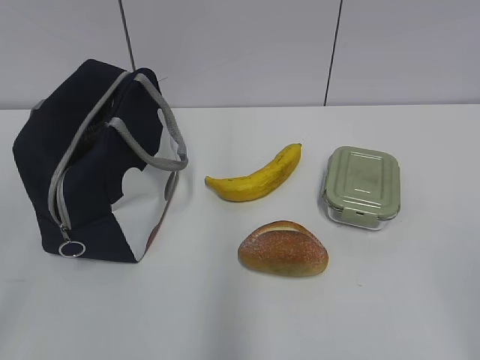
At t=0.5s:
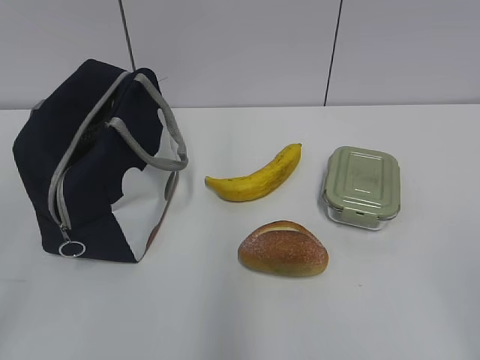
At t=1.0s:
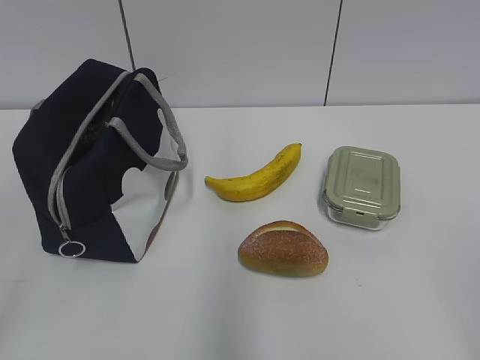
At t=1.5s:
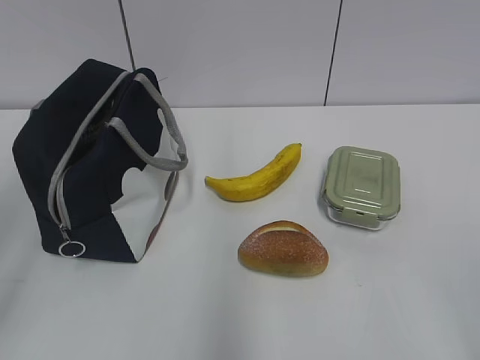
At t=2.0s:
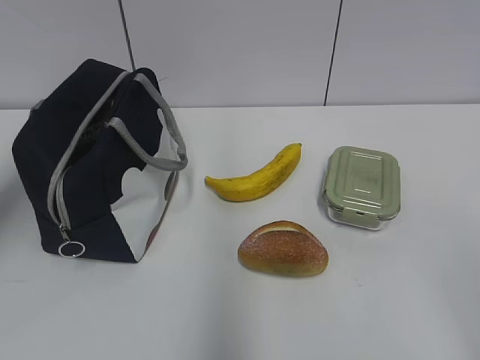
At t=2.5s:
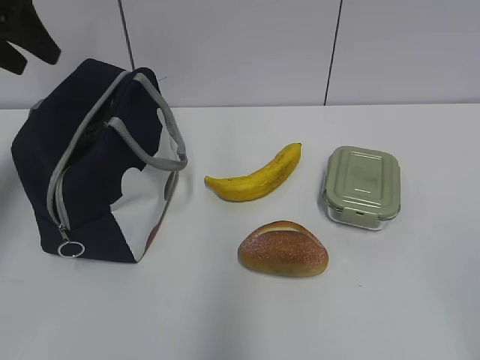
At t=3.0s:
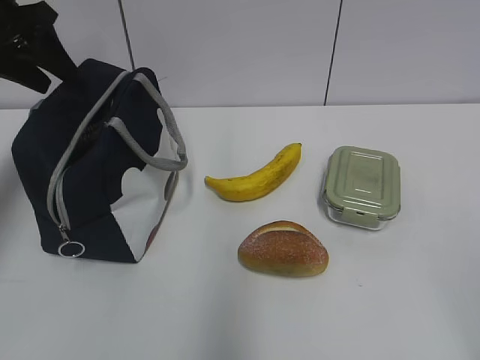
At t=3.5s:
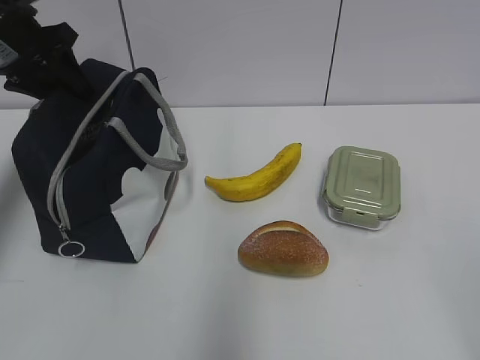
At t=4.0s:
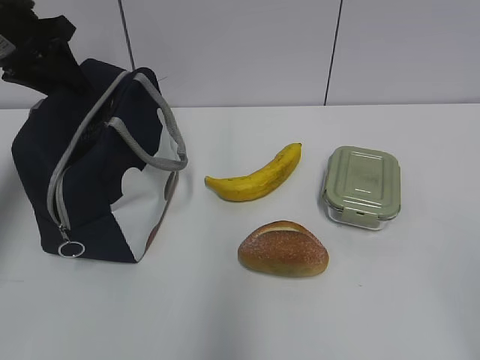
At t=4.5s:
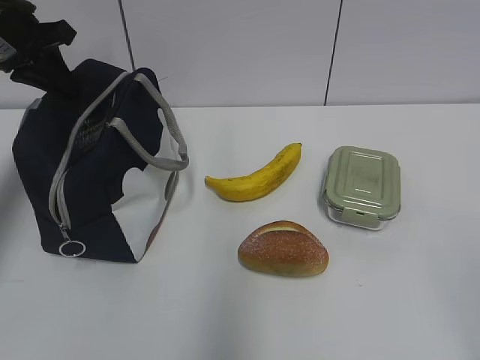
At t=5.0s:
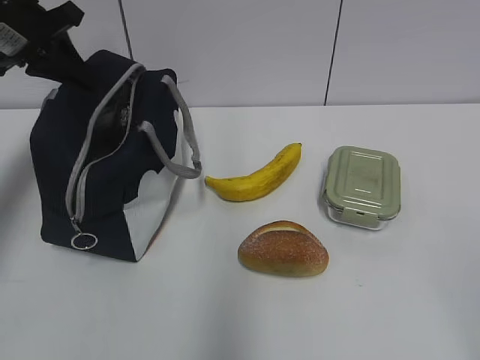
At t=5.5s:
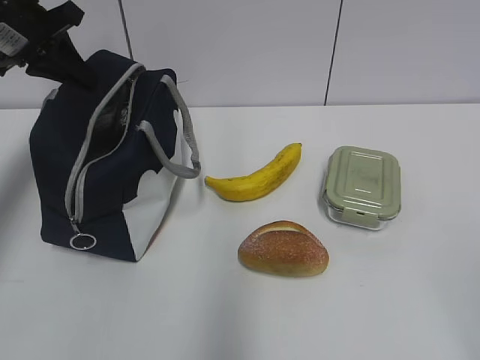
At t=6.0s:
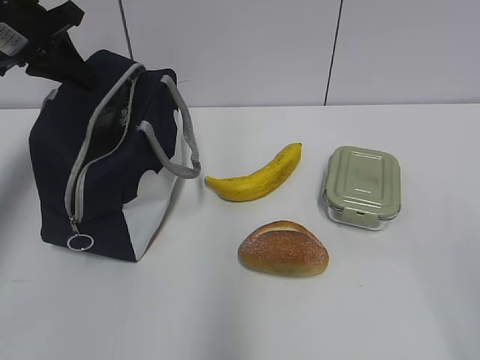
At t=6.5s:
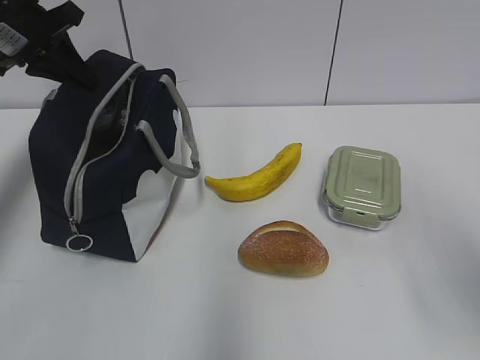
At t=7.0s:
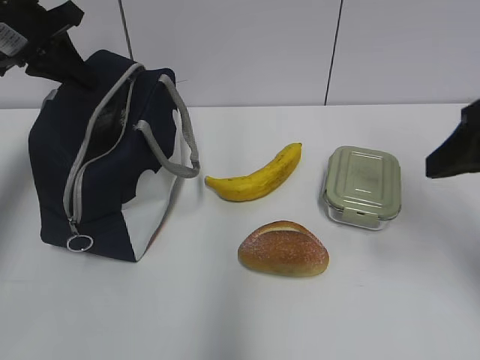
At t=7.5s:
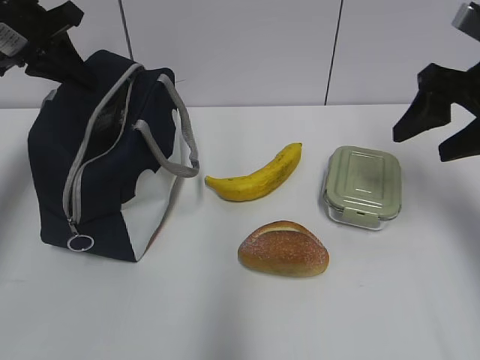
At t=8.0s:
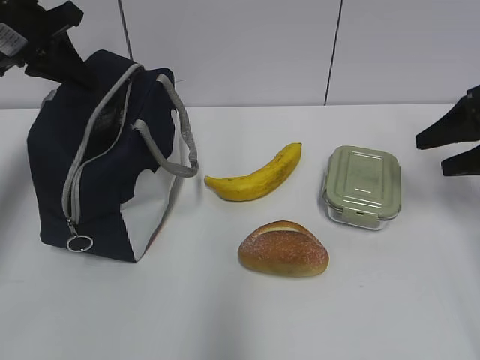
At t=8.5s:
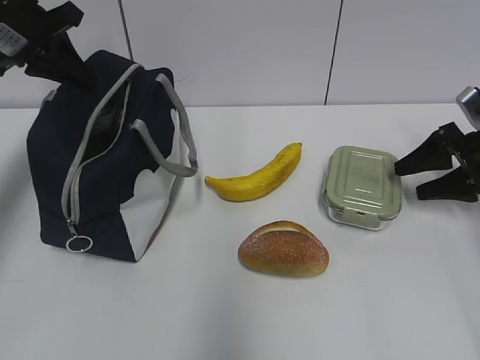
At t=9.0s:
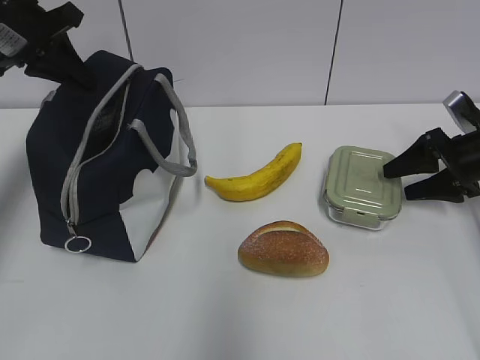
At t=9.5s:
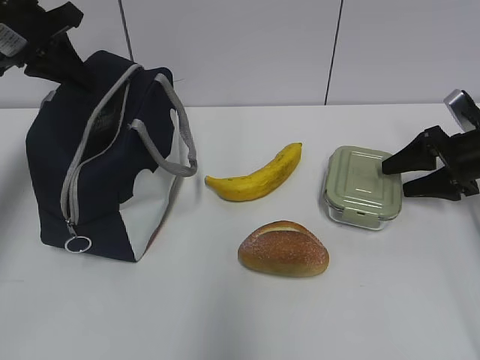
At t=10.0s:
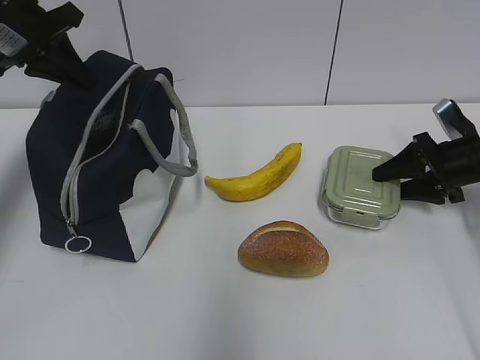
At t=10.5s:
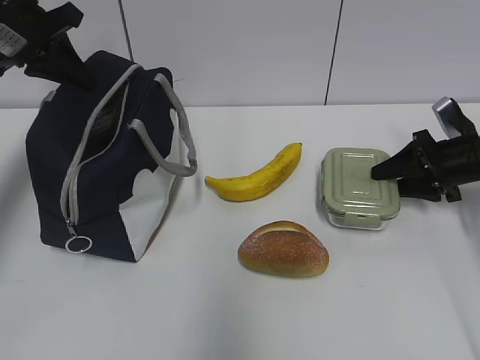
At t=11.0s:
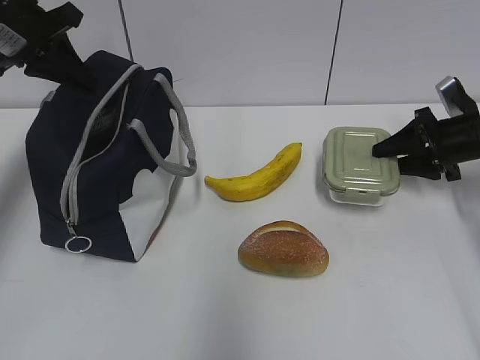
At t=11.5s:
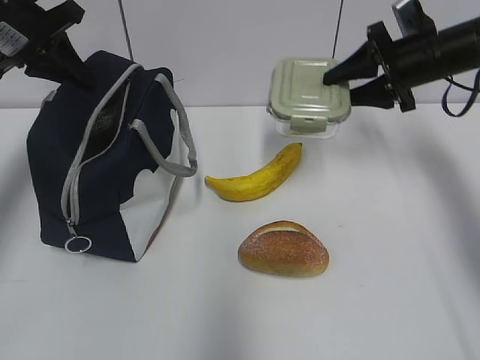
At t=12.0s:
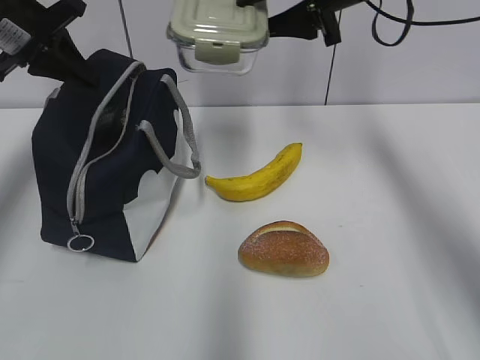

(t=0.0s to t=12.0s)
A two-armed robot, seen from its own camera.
Step, t=0.0s - t=10.0s: Grab the lunch box with your right hand.
t=2.0s - t=4.0s: The left gripper is displaced forward and downward by some 20 cm.
t=4.0s - t=6.0s: The left gripper closes up.
t=6.0s - t=8.0s: The right gripper goes some 35 cm forward.
t=8.0s - t=10.0s: The right gripper goes some 10 cm downward and forward.
t=10.0s - t=12.0s: The right gripper moves upward and to the left, about 30 cm.

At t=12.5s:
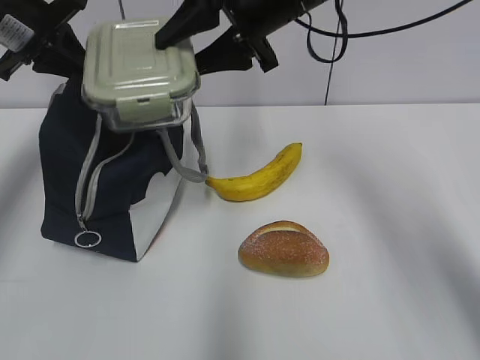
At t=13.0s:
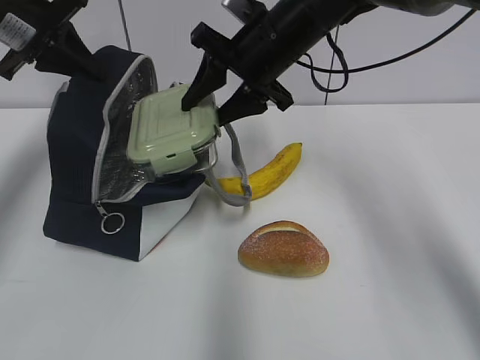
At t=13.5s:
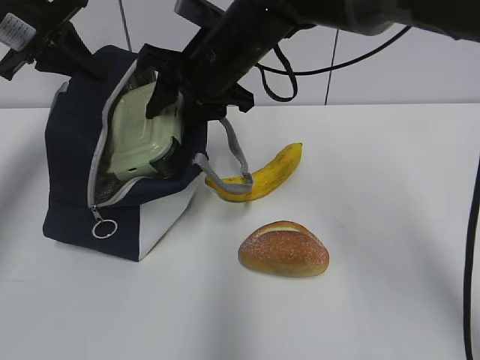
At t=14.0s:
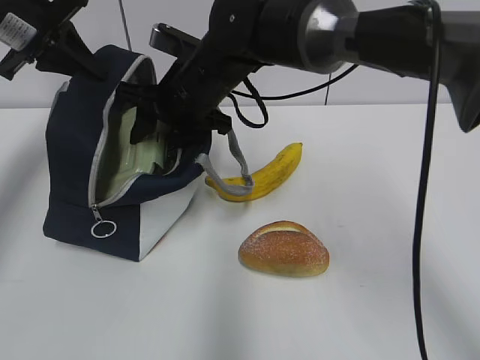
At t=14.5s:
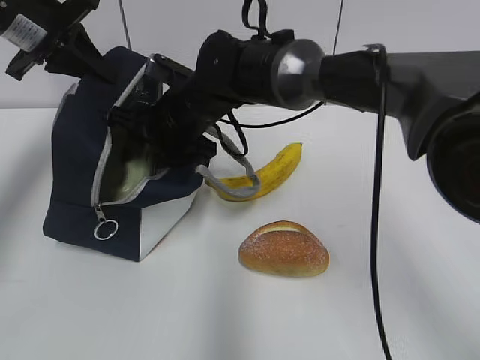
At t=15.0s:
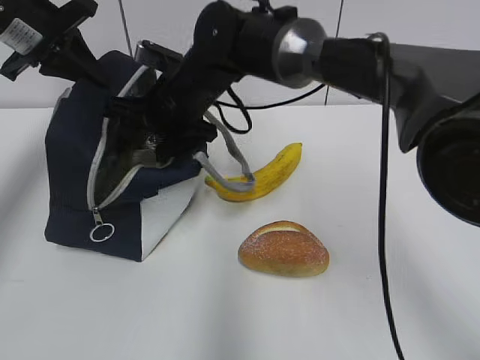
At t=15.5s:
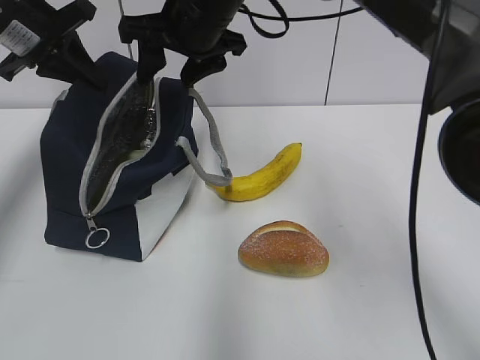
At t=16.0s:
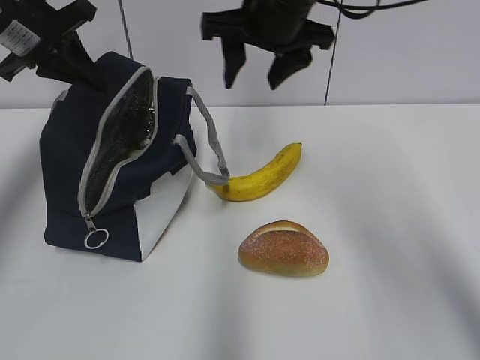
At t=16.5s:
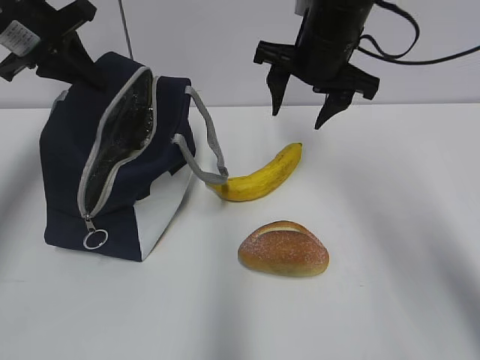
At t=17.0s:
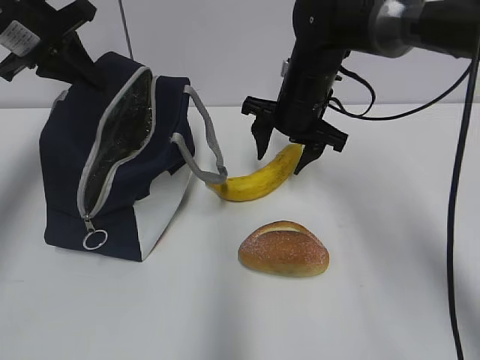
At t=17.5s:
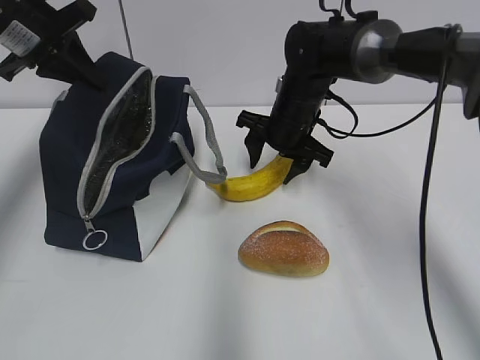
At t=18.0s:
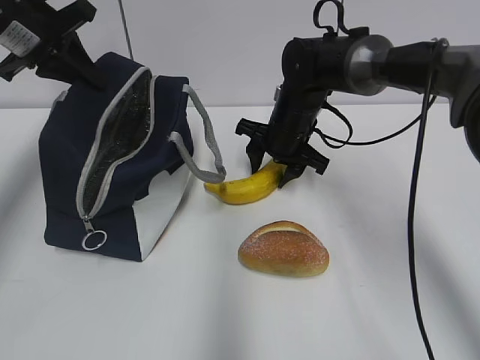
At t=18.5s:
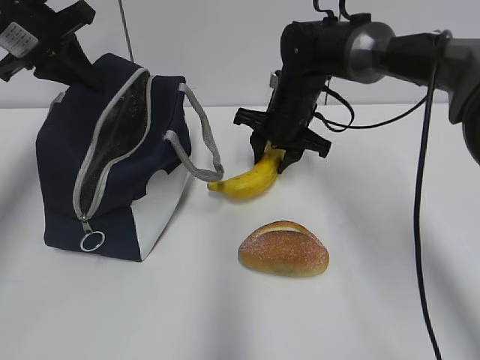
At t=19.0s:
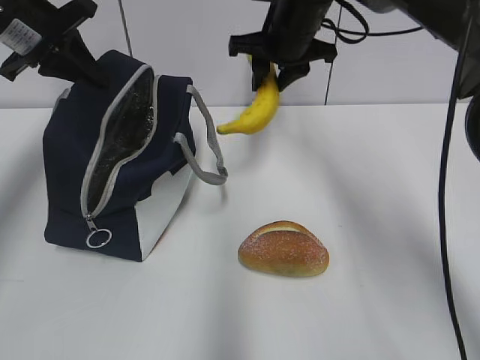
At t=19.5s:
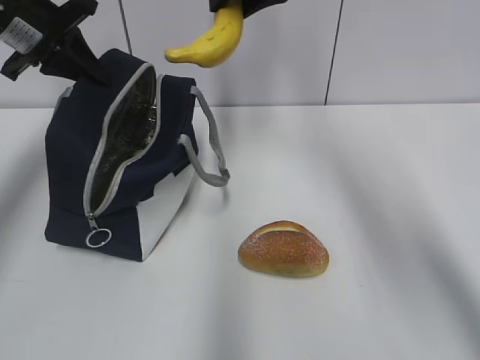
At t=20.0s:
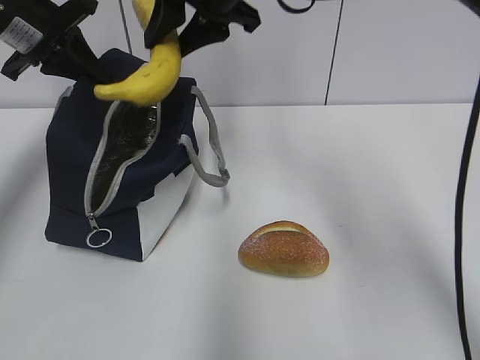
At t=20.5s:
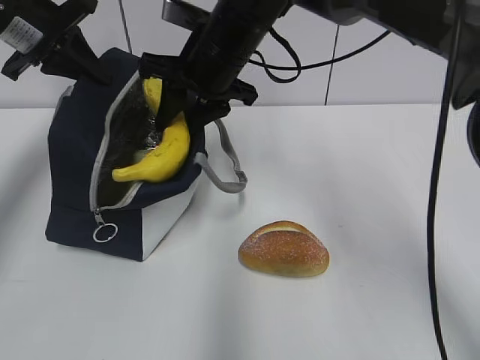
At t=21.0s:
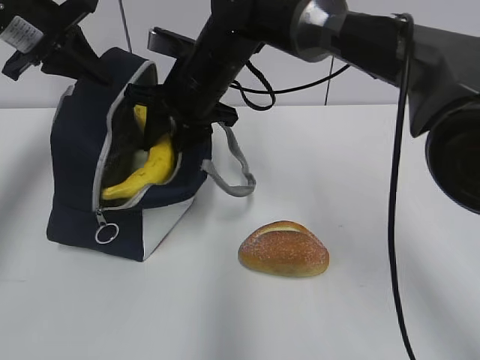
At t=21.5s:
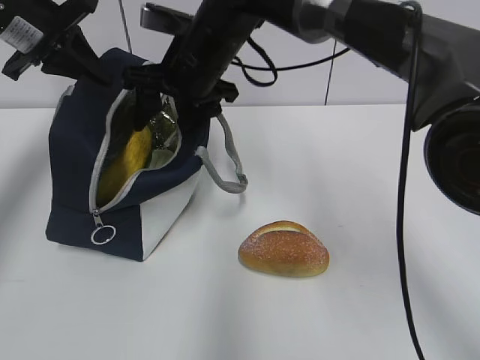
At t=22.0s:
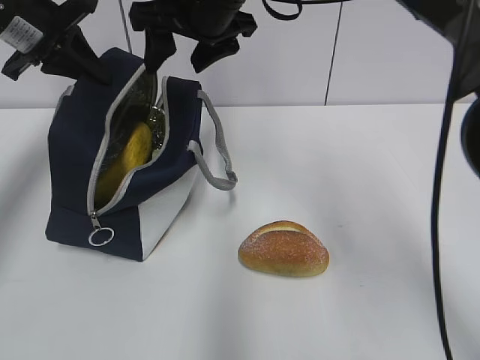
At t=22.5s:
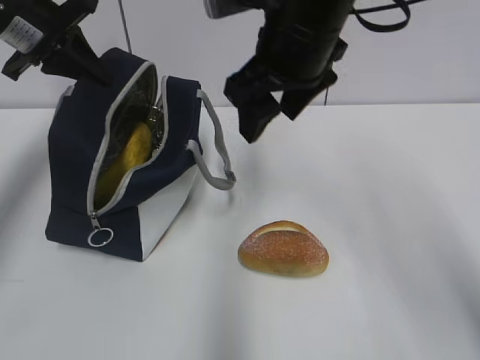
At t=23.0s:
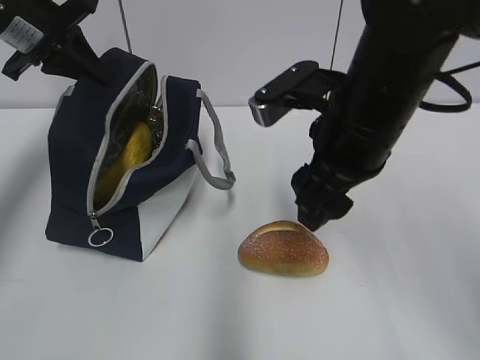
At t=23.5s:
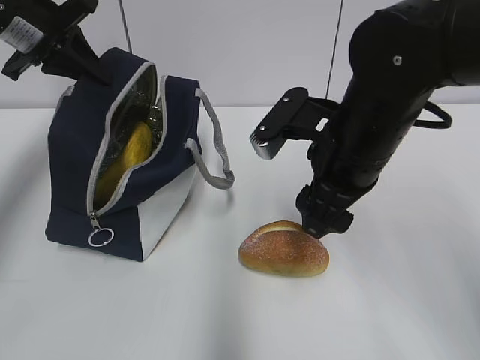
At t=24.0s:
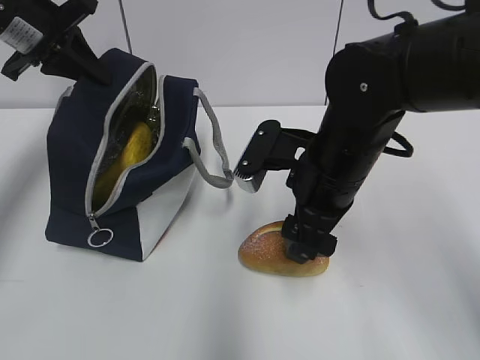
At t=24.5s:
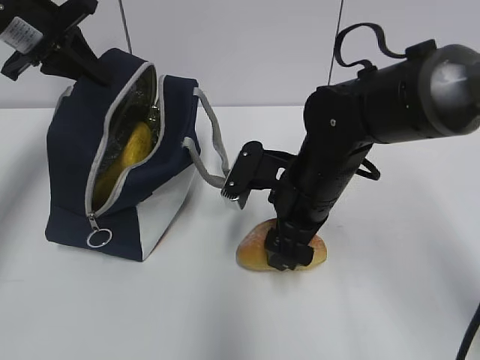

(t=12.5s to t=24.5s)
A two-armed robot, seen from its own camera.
Step, t=13.5s - t=15.0s: Place it into the bag with your right hand.
Step, t=15.5s - t=18.0s: Grab the banana with your right hand.
Step, t=18.5s - t=21.5s: Place it into the bag with your right hand.
t=12.5s - t=14.5s: The right gripper is displaced downward and to the left by approximately 20 cm.
t=14.5s - t=16.5s: The right gripper travels to the right and upward by roughly 20 cm.
t=16.5s - t=18.5s: The right gripper moves downward and forward, roughly 15 cm.
t=18.5s - t=20.5s: The right gripper is displaced upward and to the left by approximately 15 cm.
t=20.5s - t=22.5s: The right gripper goes roughly 10 cm backward, to the right and upward, and opens up.
t=22.5s - t=24.5s: The right gripper is displaced downward by approximately 15 cm.

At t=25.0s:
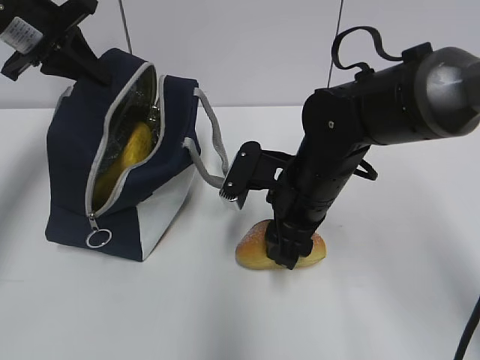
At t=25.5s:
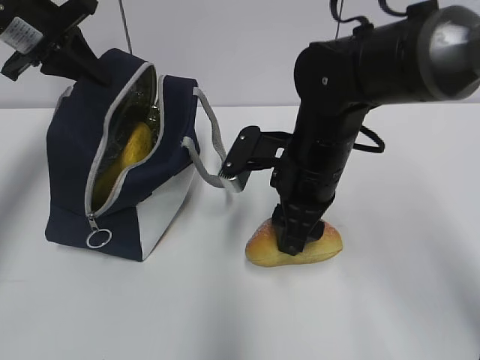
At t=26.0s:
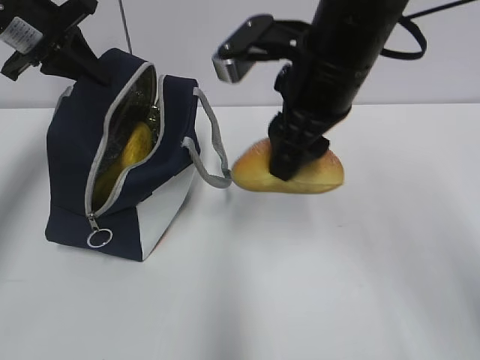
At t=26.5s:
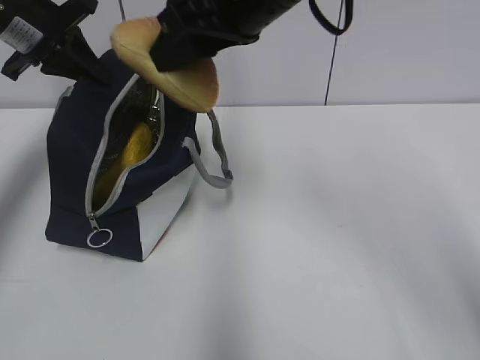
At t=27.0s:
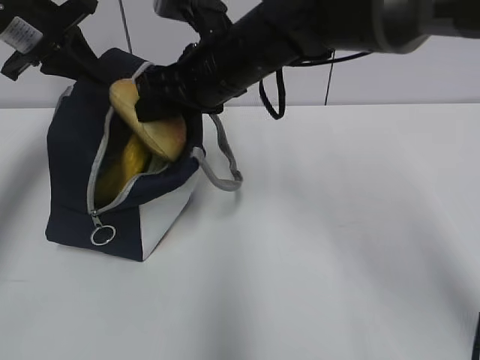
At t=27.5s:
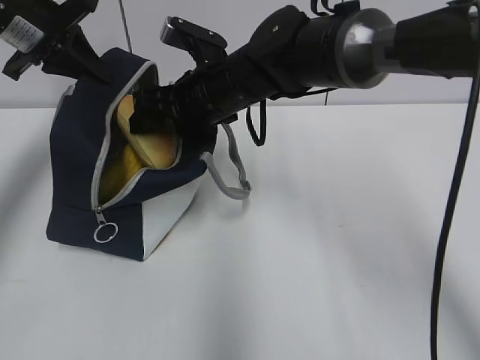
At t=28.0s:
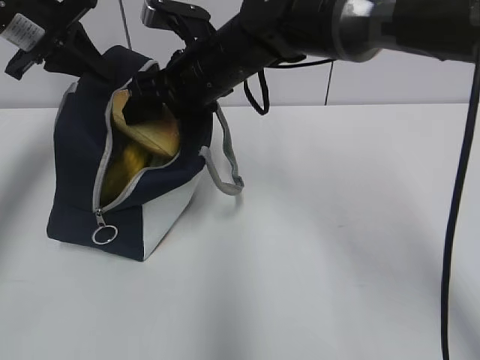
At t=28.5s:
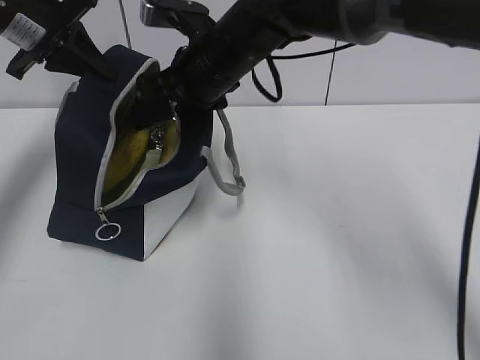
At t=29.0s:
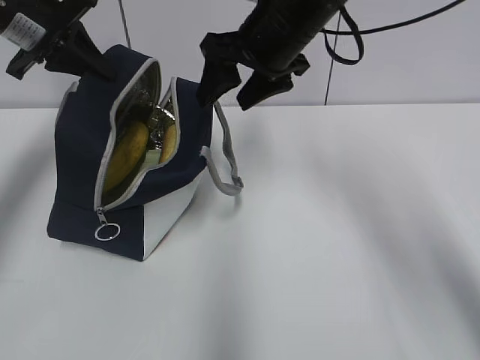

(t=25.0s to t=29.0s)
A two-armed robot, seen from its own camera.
Step, t=25.5s - t=28.0s: Place it into the bag with your right hand.
t=25.0s - t=27.0s: The right gripper goes some 15 cm upward, to the left and forward.
t=27.0s - t=29.0s: The right gripper moves to the right, approximately 5 cm.
